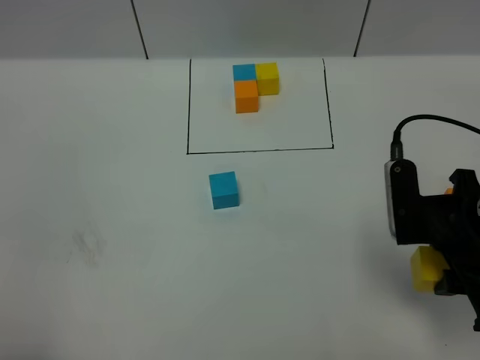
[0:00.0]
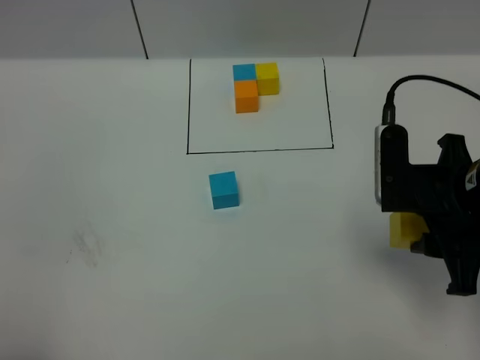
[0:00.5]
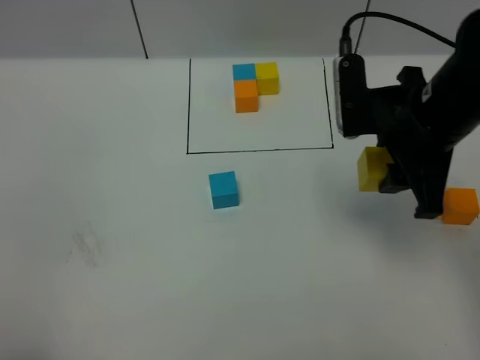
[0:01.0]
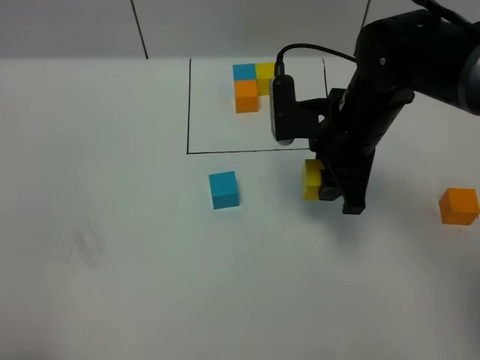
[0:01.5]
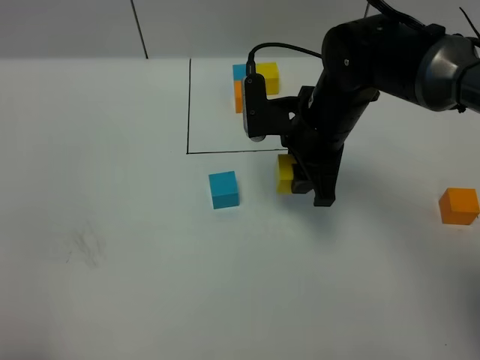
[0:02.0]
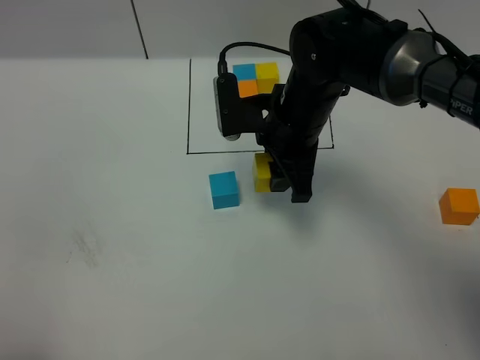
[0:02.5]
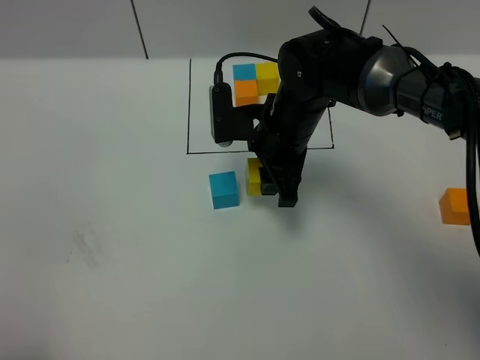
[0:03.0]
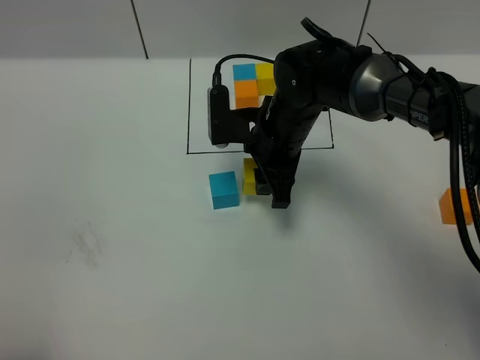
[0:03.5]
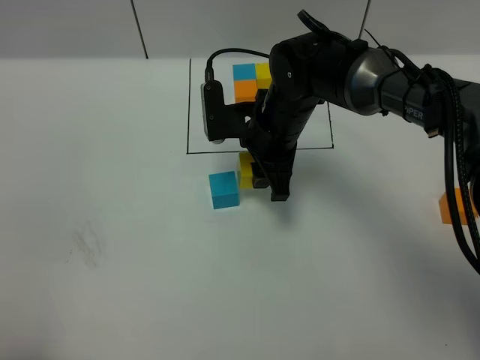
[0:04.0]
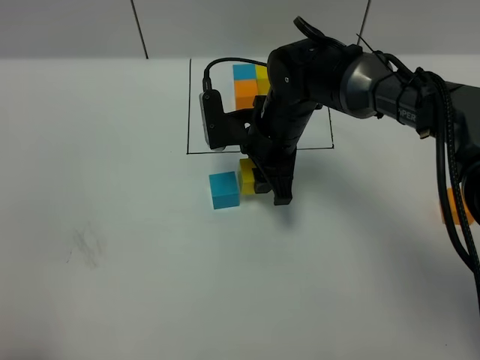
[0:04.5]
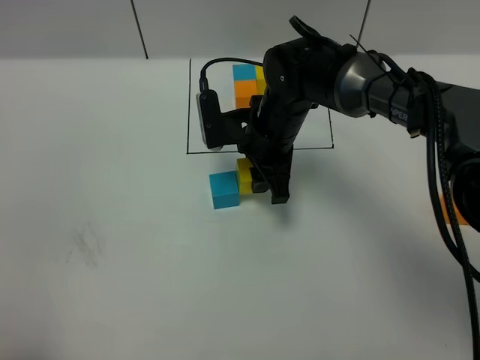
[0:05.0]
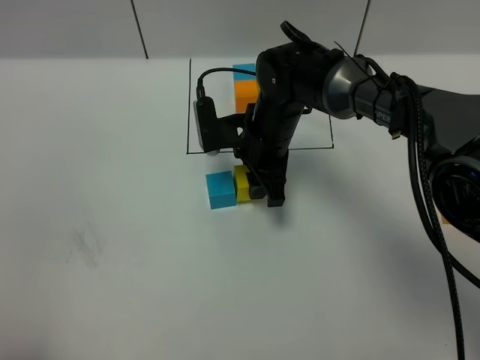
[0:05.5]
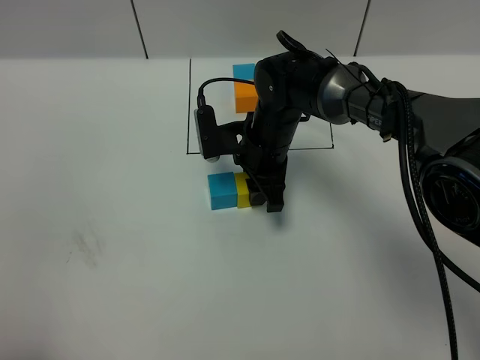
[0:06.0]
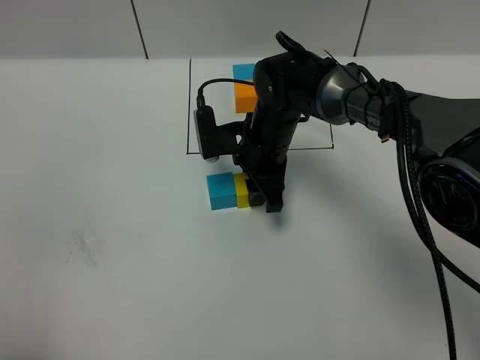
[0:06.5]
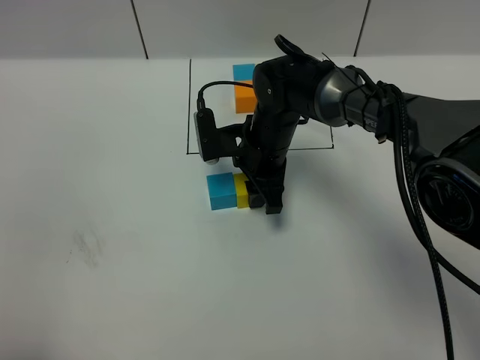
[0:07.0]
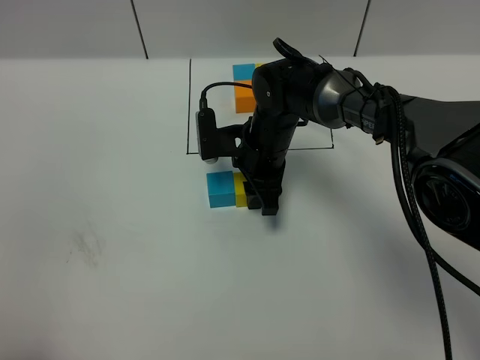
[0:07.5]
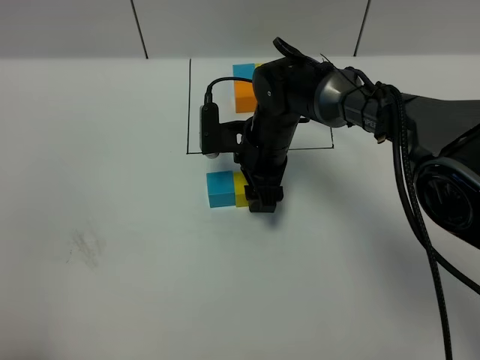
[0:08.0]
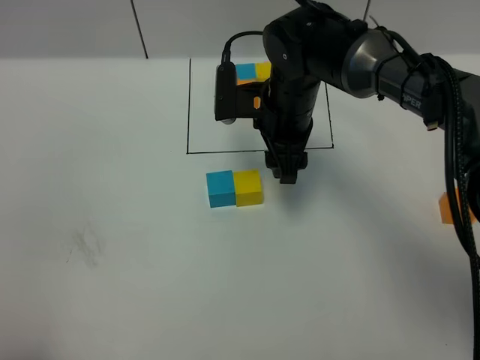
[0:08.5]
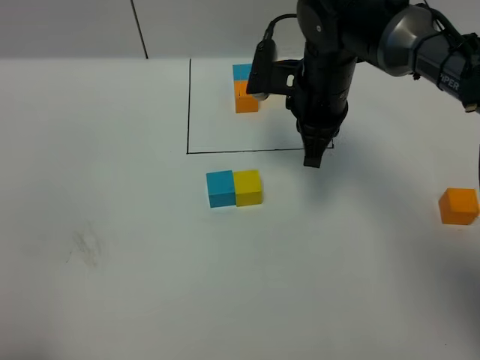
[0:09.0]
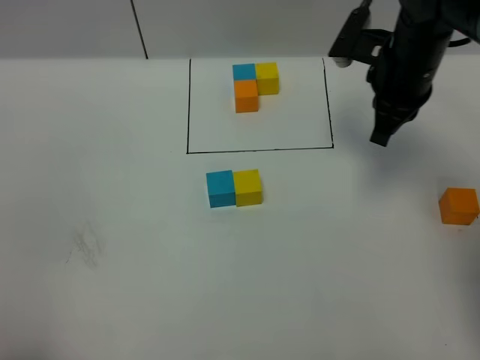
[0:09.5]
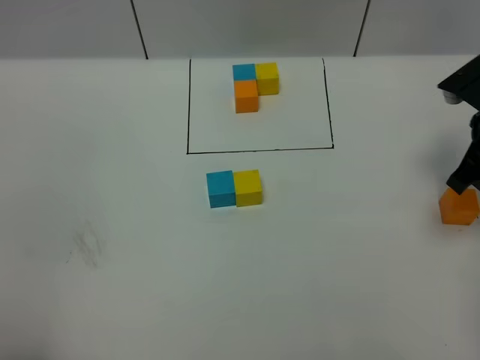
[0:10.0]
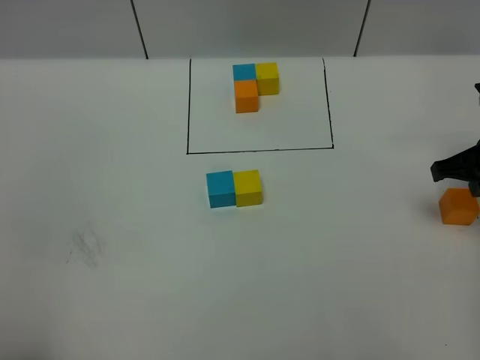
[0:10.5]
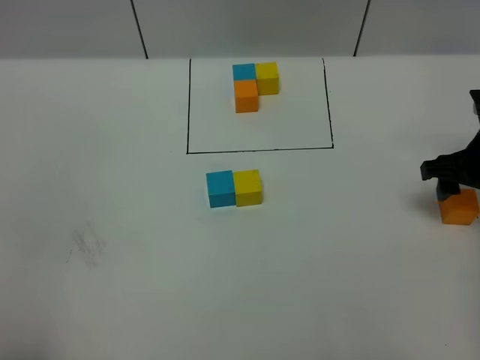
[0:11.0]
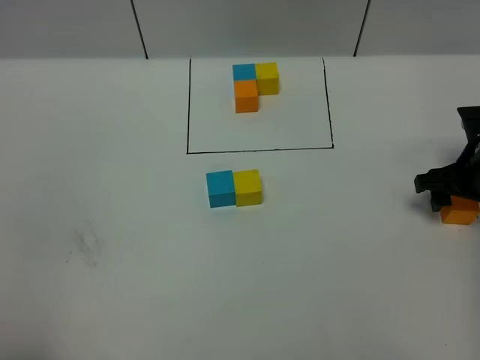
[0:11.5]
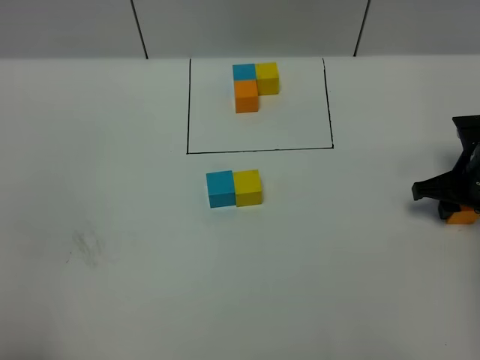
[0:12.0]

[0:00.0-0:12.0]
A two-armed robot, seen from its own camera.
Task of the whole recording: According to the building block template in front, assemble the scattered blocks together.
Step, 0:00.0 to 0:08.5: Put the yellow cube on the right of the blue cube.
0:00.0 to 0:02.0: The right gripper shifts approximately 20 cm forward and to the left.
0:02.0 to 0:04.0: The right gripper moves about 5 cm.
0:04.0 to 0:08.0: The grippers move only a little.
0:08.0 to 0:10.0: The right gripper travels to the right and upward by approximately 30 cm, and closes its fingers.
0:10.0 to 0:12.0: The right gripper shifts some 10 cm downward, and opens up.

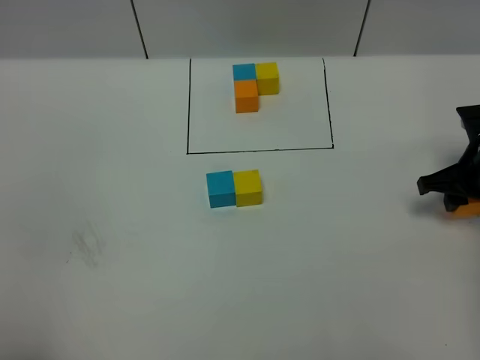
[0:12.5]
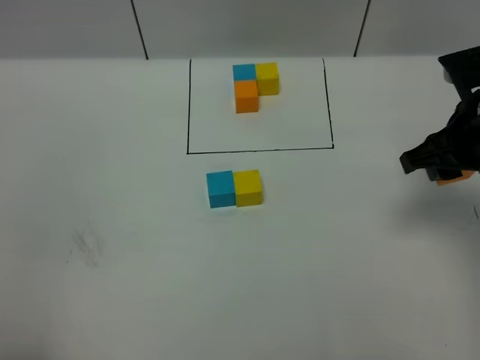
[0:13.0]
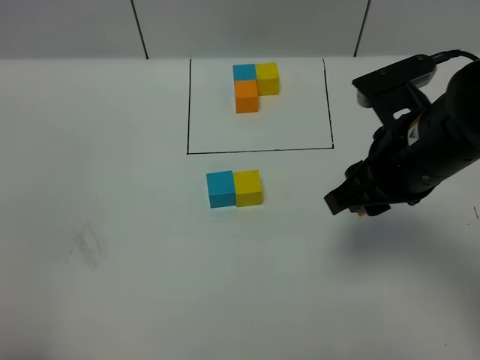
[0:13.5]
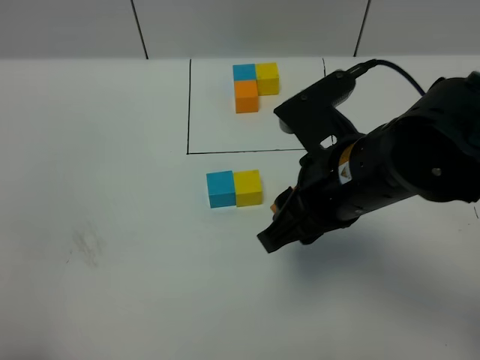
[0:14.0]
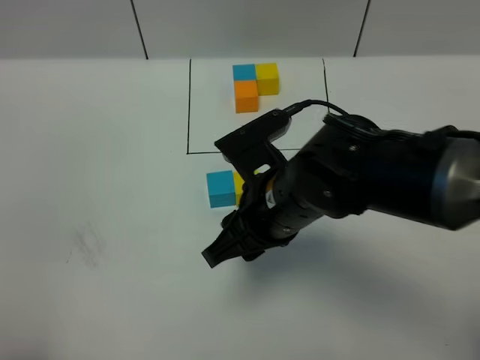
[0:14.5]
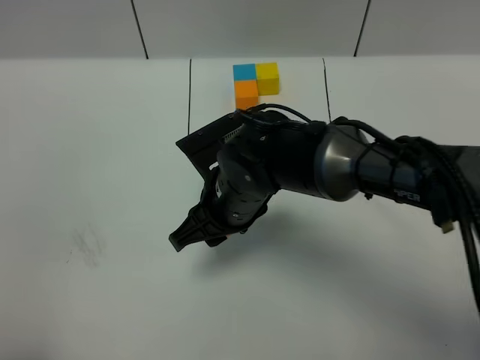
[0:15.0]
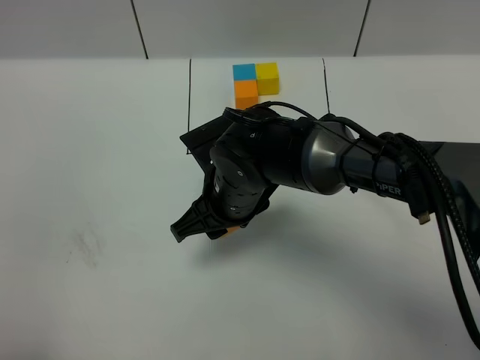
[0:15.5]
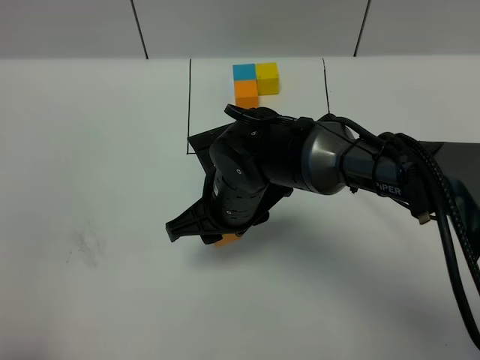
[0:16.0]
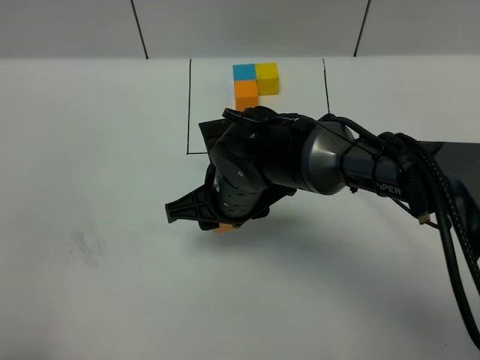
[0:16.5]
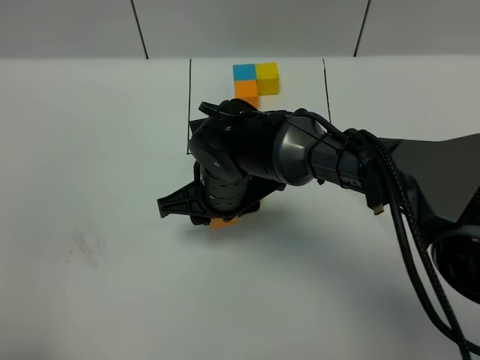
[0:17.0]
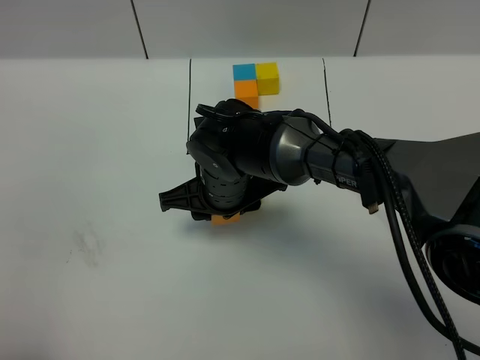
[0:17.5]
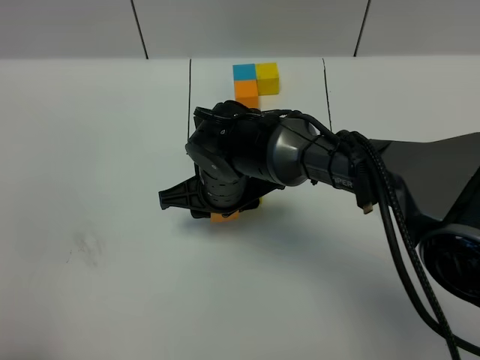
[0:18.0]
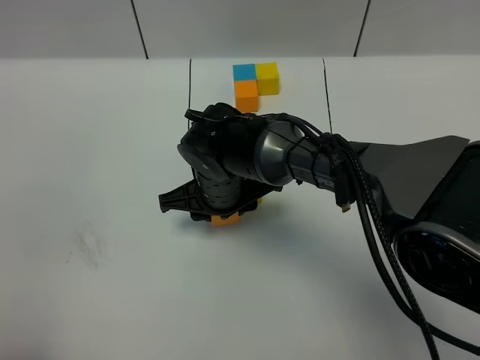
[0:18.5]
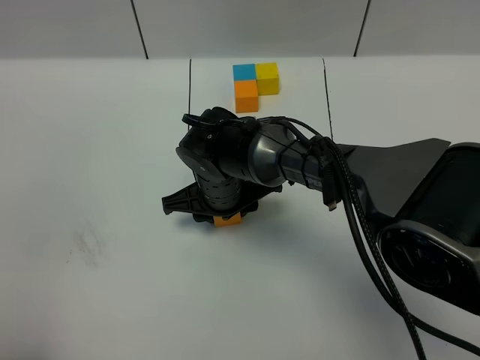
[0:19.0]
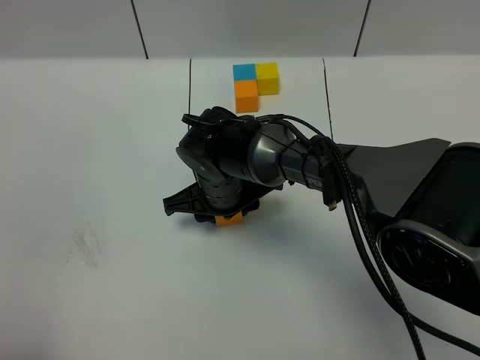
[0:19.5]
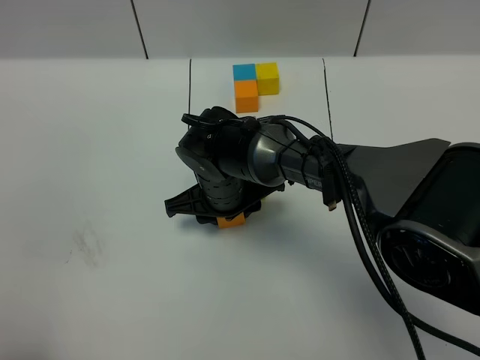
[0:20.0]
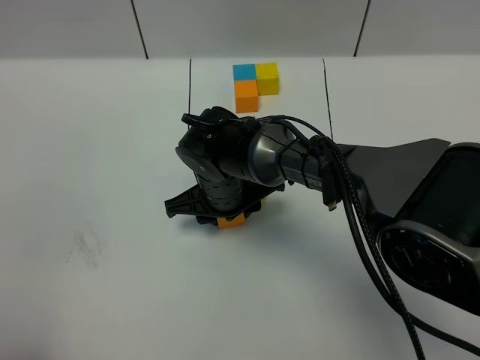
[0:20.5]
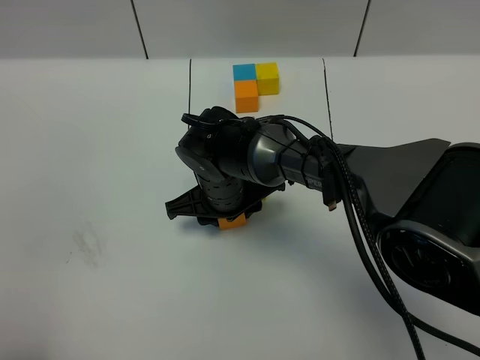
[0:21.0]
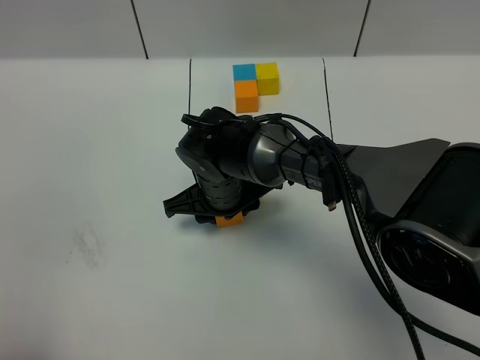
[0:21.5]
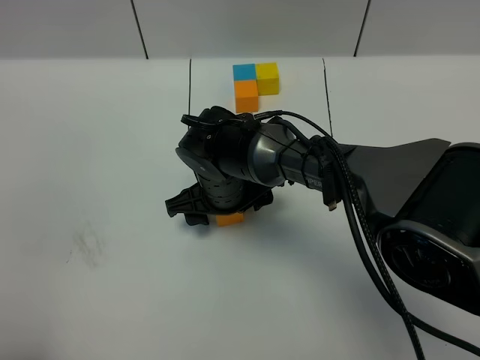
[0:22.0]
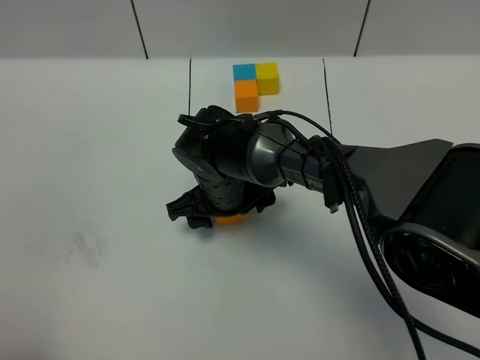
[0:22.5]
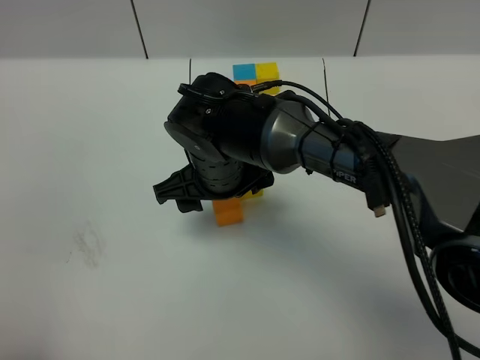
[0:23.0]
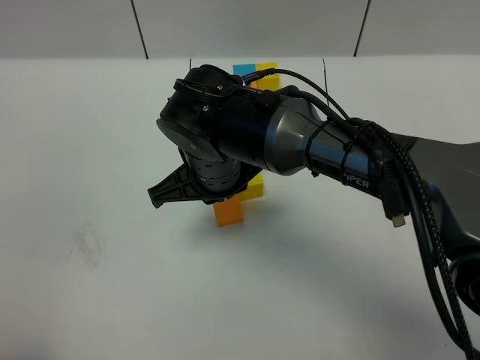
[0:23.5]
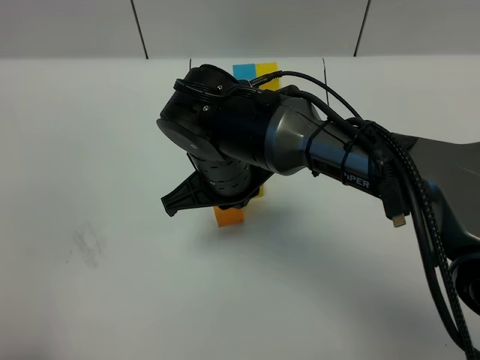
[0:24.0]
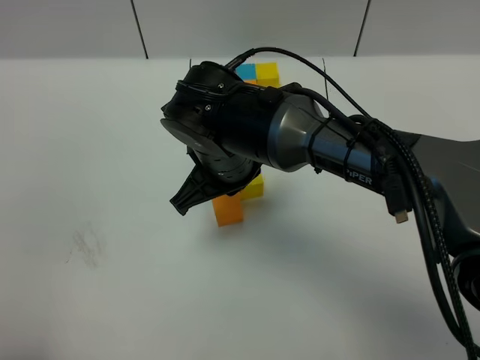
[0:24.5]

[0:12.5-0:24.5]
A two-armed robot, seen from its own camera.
Task of the whole recording: According to the building block template in front, assemble the scattered blocks together.
Step, 0:12.5 to 0:23.0: Put the orange cube in the front of the blue cube.
0:12.5 to 0:14.5: The right gripper moves to the left, about 25 cm.
0:14.5 to 0:16.5: The right gripper is displaced forward and downward by about 10 cm.
0:16.5 to 0:18.5: The right gripper changes place by approximately 5 cm.
0:18.5 to 0:20.5: The two grippers keep their place.
0:20.5 to 0:22.5: Both grippers stay put.
0:22.5 to 0:24.5: The right gripper is displaced upward by some 10 cm, and closes.

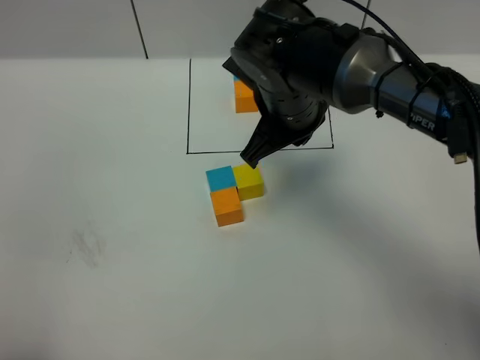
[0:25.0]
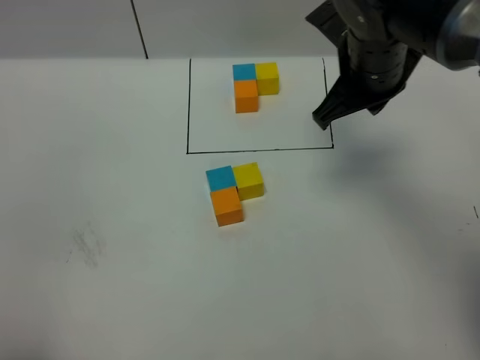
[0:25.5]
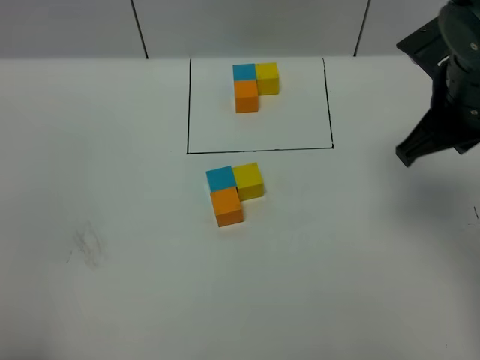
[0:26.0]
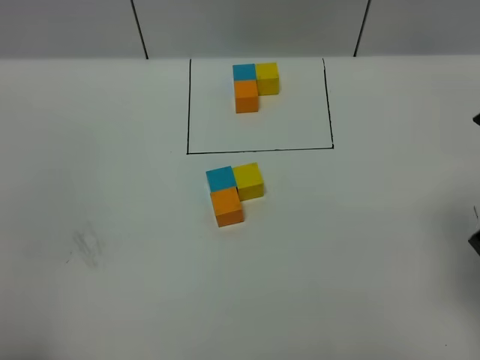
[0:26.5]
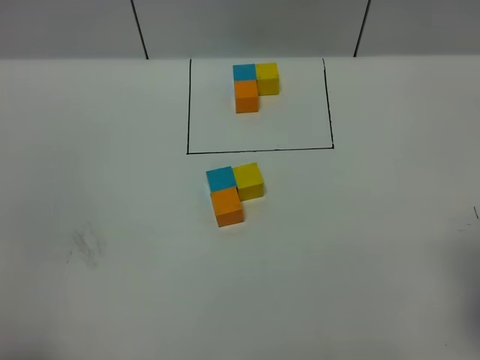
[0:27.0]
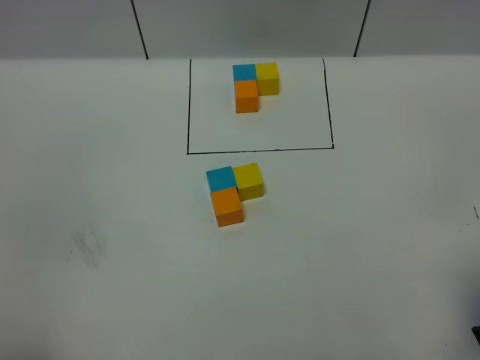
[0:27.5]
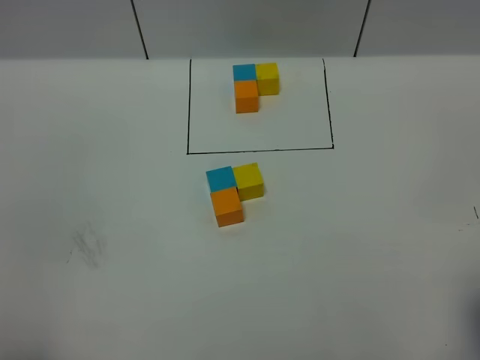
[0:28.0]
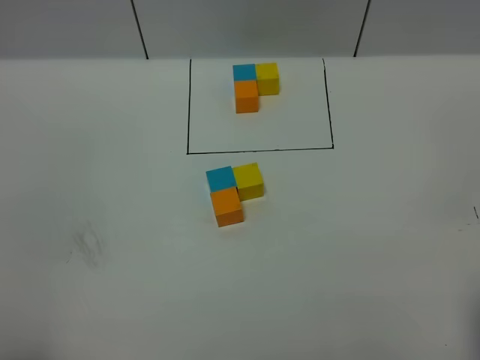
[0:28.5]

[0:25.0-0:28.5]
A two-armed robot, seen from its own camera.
Task of the whole recording: According to the building block template in front, assemble the scattered blocks together.
0:25.0 to 0:27.0: The right gripper heads backward and to the right, covering about 30 cm.
